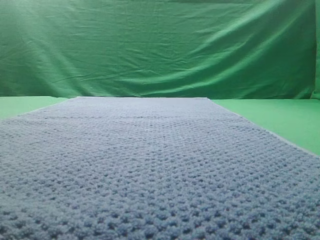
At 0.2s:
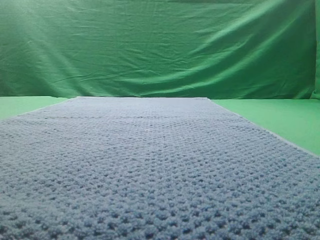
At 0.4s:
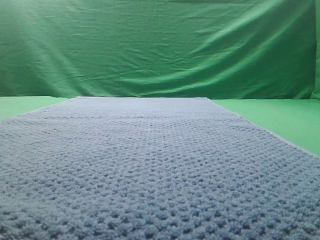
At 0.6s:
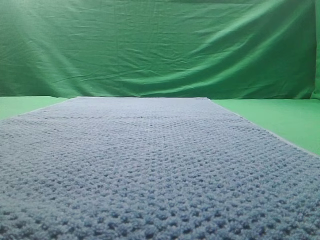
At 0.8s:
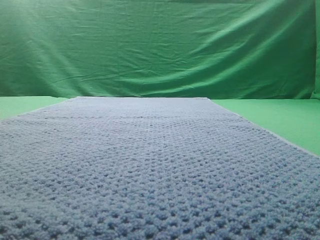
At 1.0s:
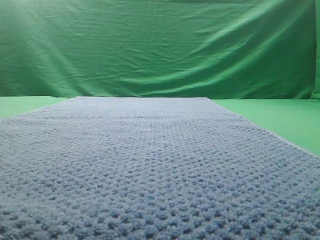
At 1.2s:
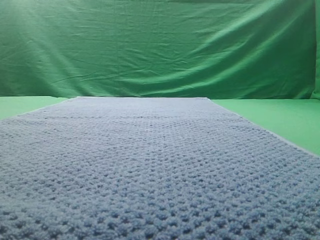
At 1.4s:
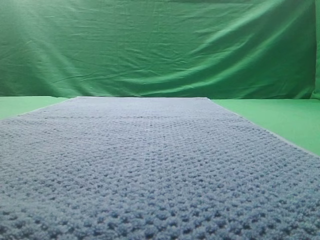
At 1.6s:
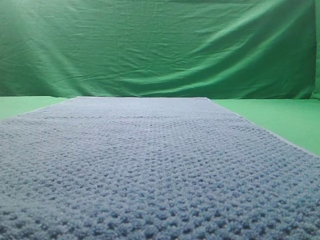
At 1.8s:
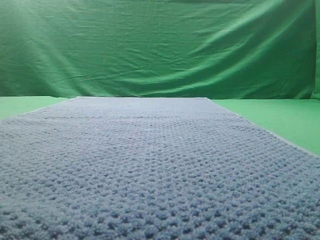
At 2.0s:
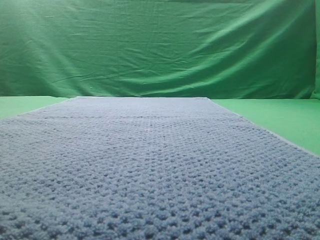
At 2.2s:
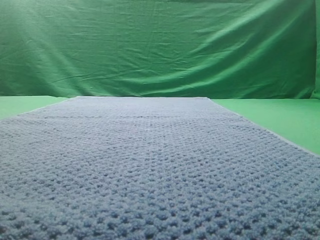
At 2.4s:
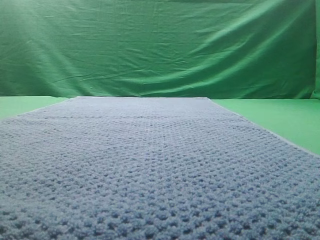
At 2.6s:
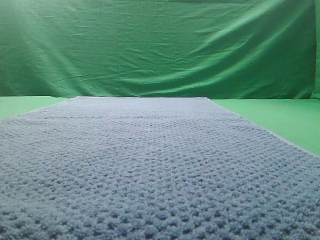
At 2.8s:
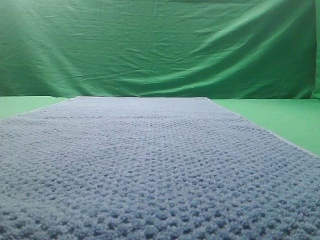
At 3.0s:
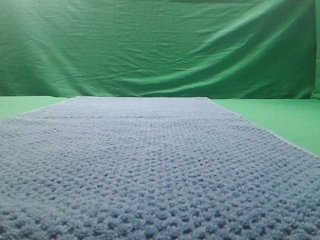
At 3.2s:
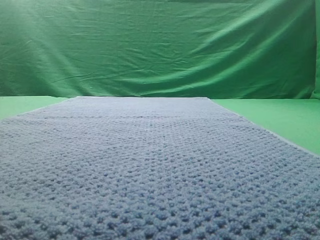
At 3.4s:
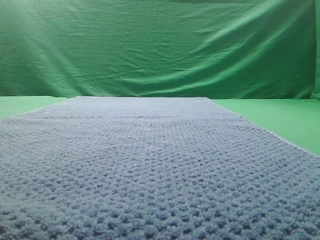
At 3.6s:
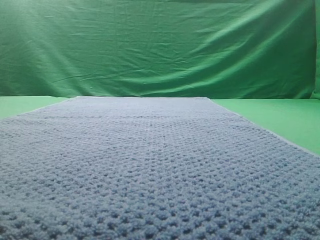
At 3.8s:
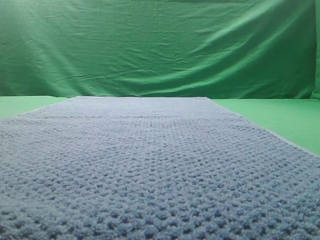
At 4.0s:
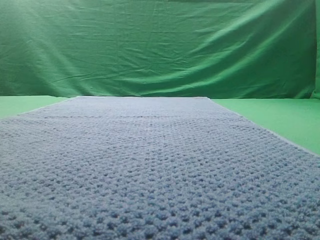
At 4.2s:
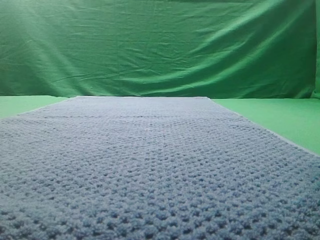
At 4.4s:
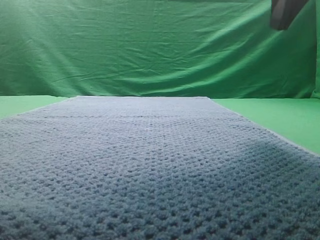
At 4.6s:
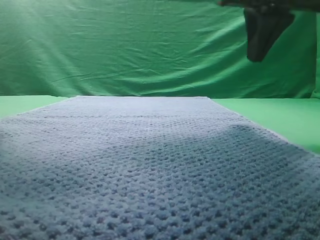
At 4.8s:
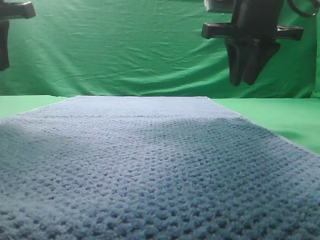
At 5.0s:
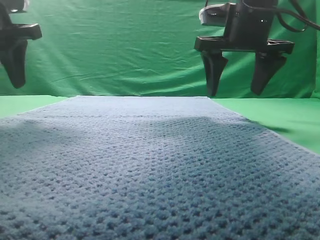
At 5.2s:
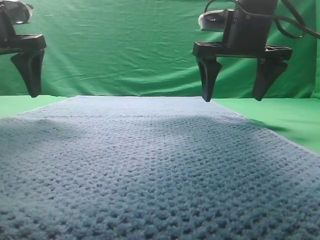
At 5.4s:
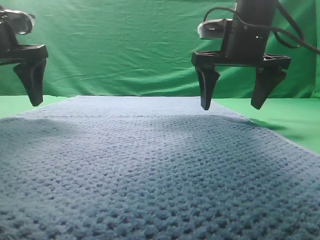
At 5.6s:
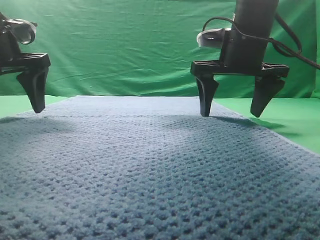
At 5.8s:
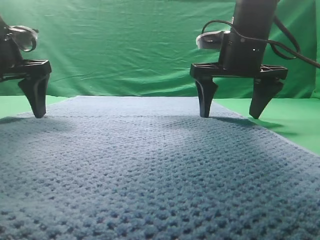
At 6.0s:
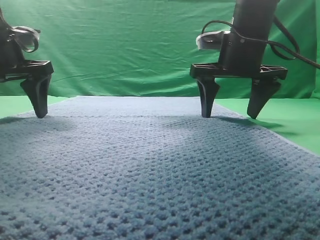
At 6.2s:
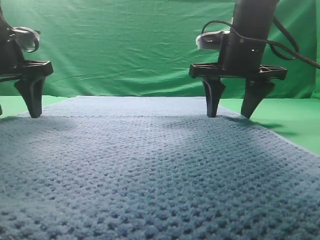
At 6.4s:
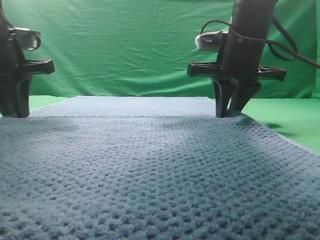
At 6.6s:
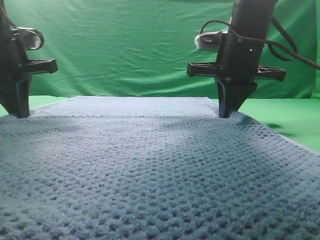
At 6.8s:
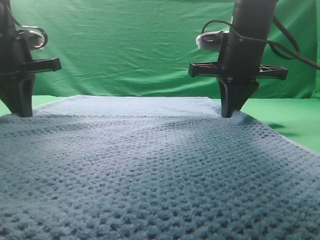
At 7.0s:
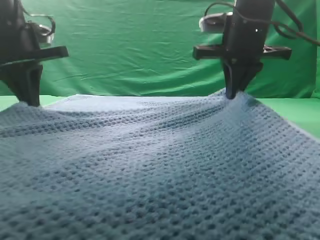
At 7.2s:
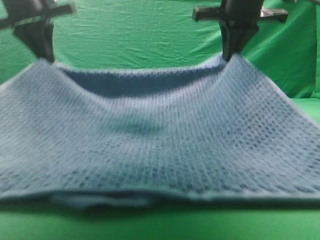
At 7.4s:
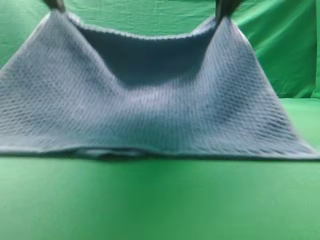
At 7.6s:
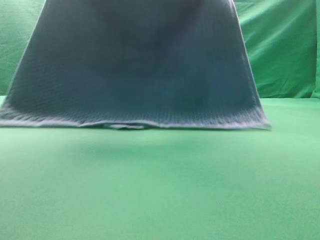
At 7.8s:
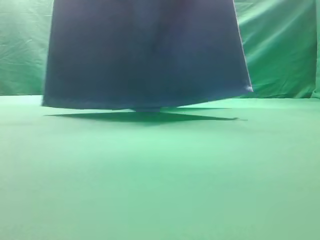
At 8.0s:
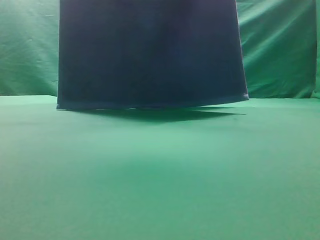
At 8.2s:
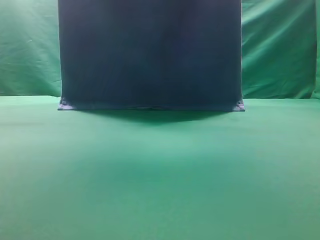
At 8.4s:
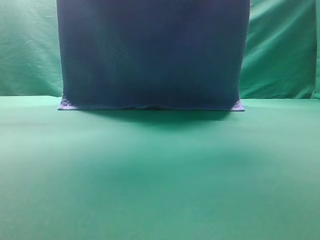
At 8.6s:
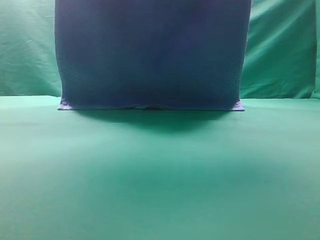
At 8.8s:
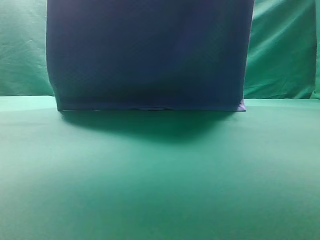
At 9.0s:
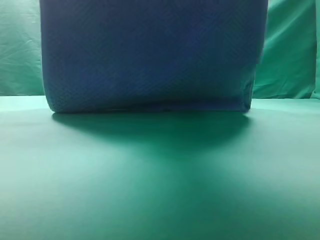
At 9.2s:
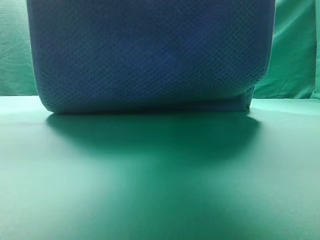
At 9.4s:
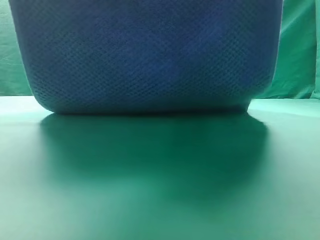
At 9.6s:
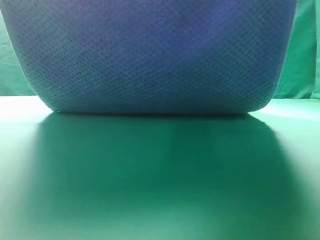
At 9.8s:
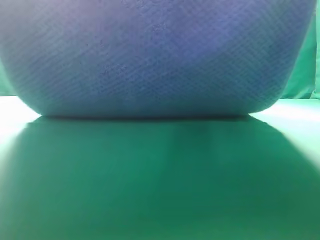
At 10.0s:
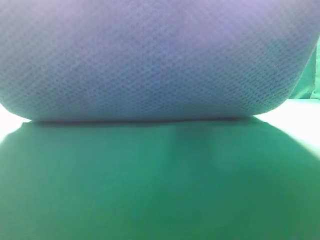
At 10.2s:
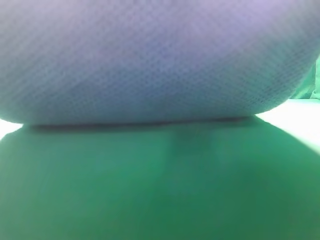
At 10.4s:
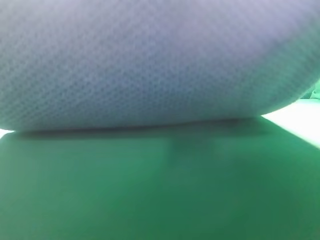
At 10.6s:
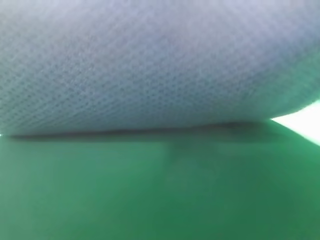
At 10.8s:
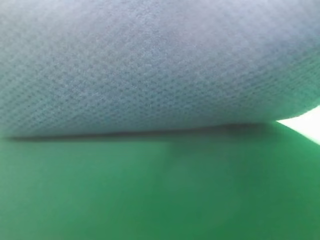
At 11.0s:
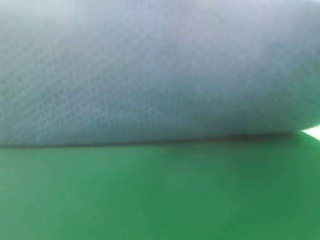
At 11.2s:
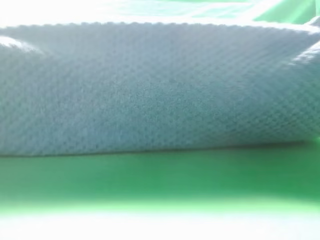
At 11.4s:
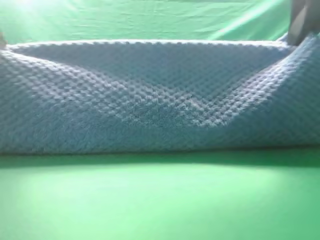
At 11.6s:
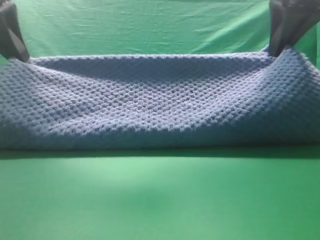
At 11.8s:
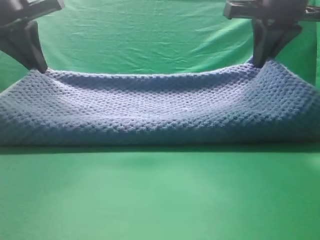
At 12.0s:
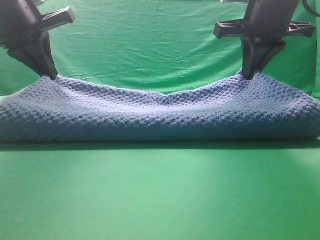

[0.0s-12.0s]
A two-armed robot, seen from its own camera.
Task of the whole recording: fold the towel on the table twice.
Step, 0.0s to 7.8s: pick up the towel with two arm.
